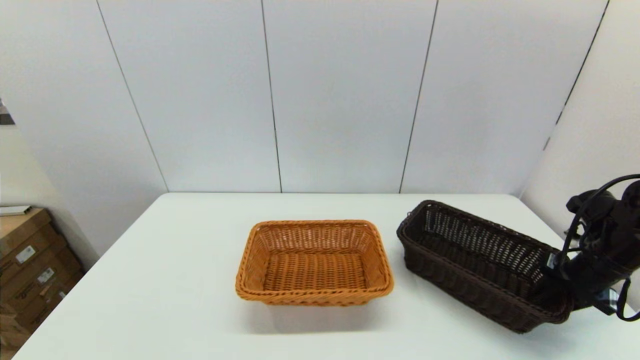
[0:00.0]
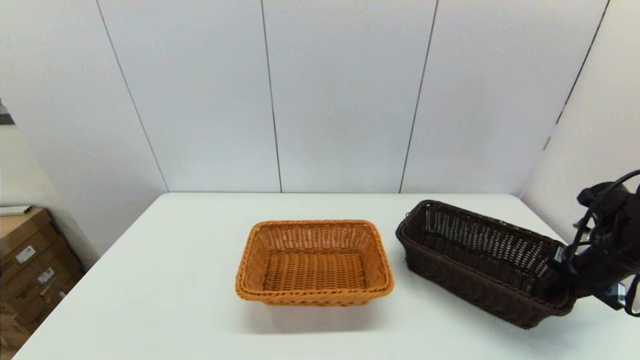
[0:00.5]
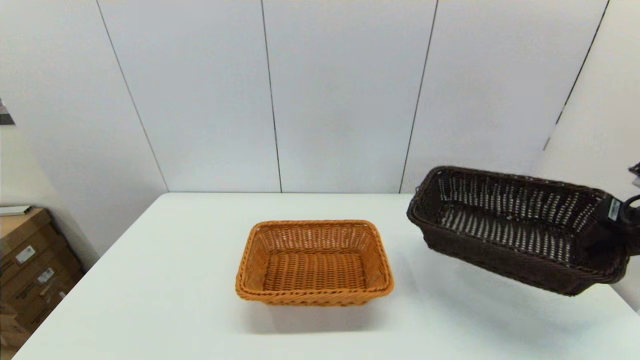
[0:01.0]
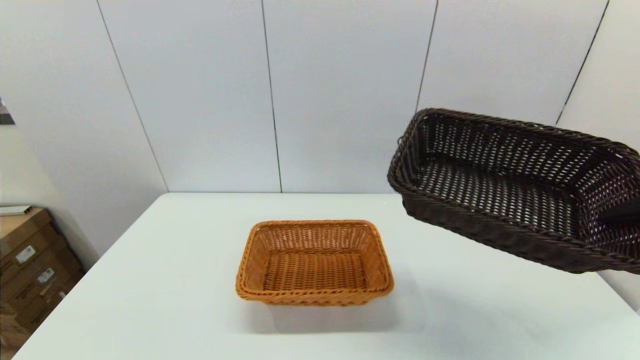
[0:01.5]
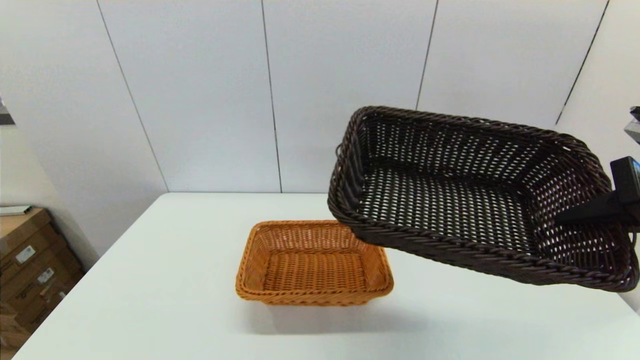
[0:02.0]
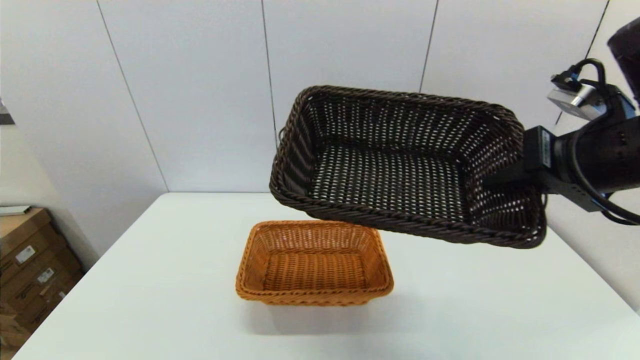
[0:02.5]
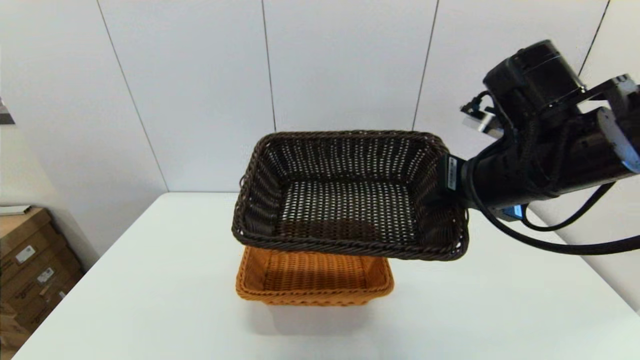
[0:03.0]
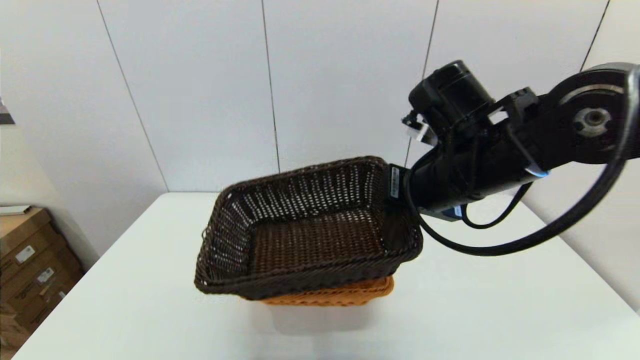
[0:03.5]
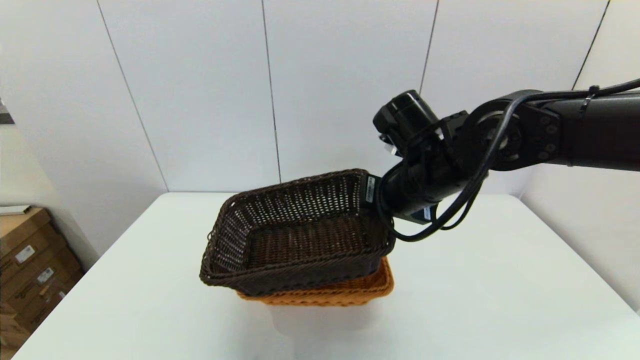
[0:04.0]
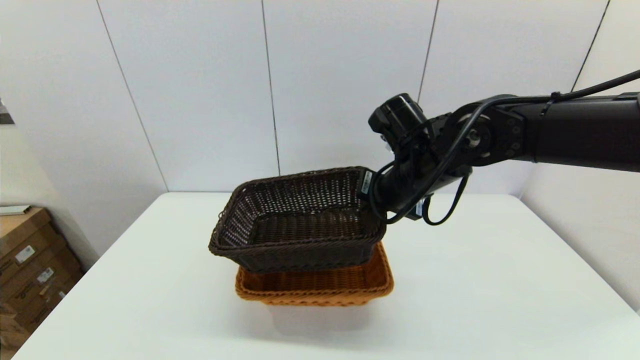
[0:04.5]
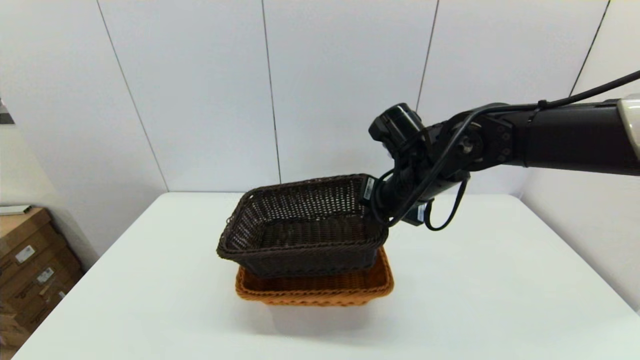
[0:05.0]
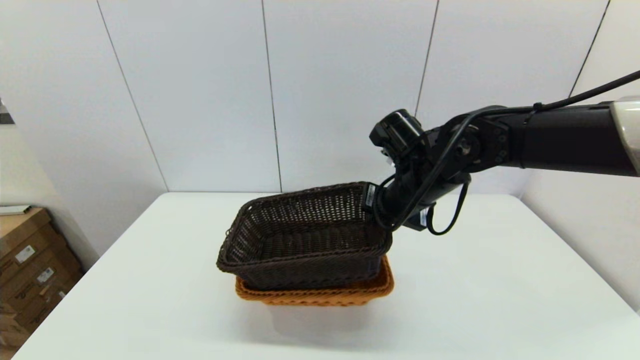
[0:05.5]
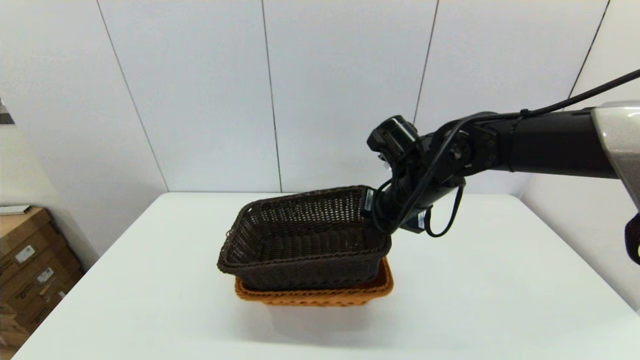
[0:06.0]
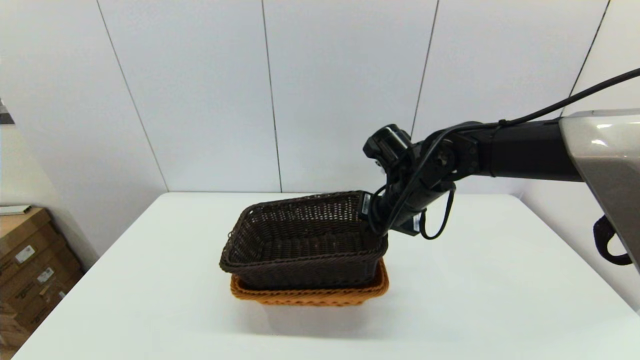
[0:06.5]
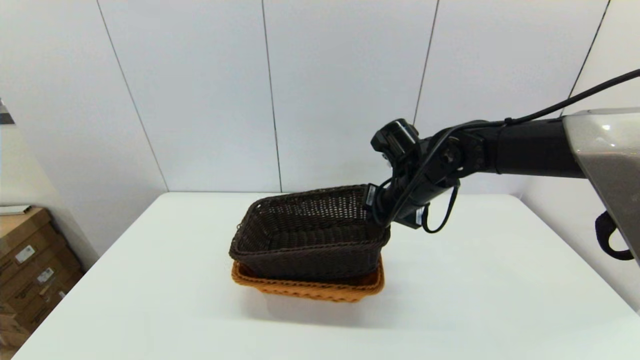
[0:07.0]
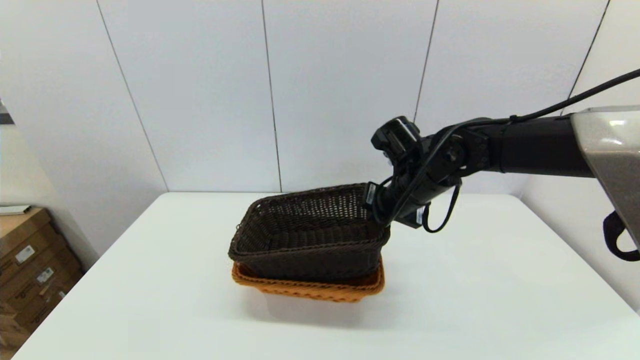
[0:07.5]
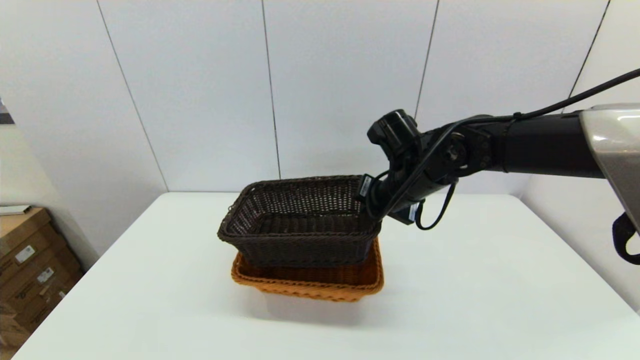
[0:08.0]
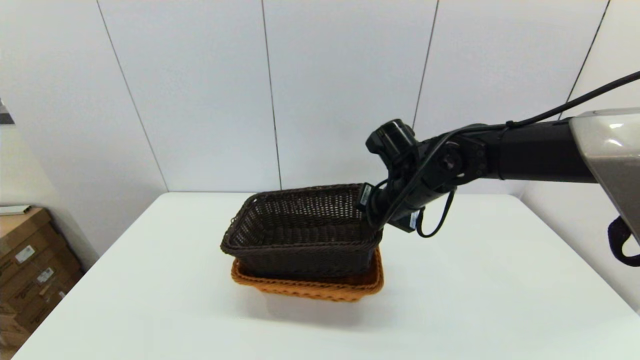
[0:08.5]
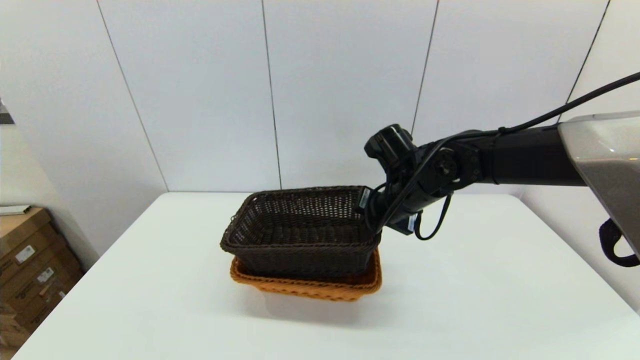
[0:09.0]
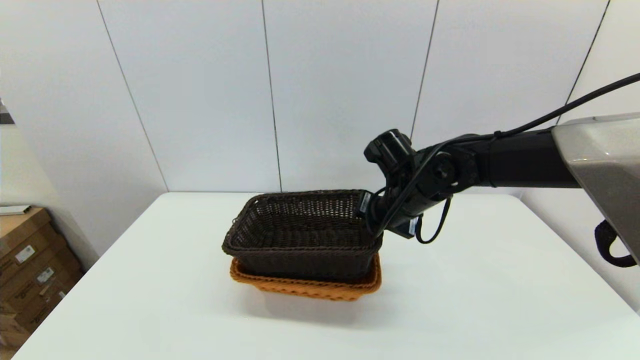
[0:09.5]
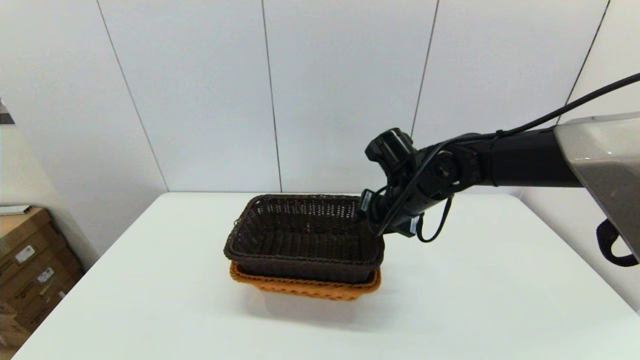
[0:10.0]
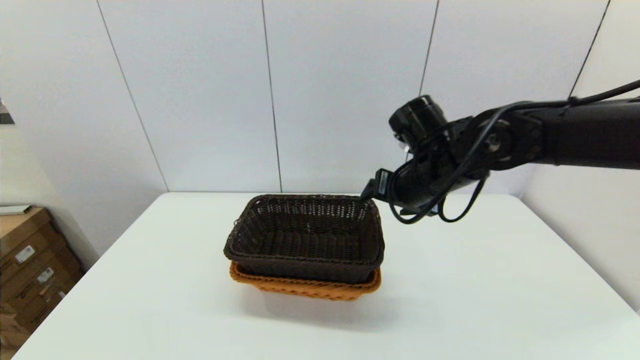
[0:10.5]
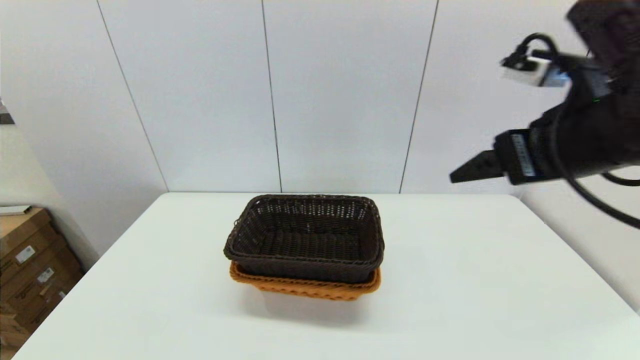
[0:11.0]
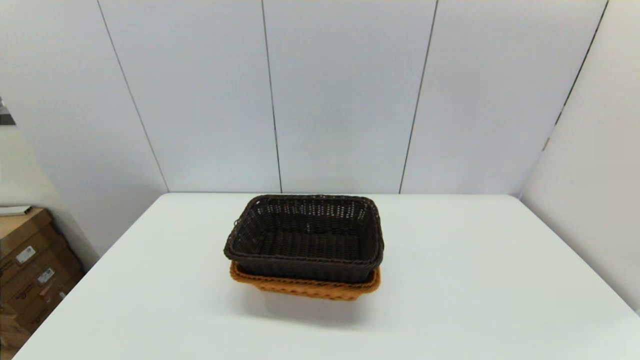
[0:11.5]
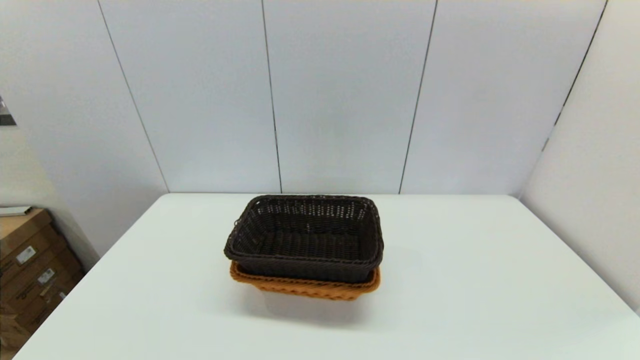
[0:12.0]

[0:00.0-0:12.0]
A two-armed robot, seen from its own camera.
Task of the whole recording: stack a basket on top of another basket.
Step, 0:01.0 to 0:10.5: Place the dark basket into the light color basket with the right gripper.
0:00.0 to 0:02.0: The right gripper shifts about 25 cm upward, backward and to the left.
0:02.0 to 0:04.0: The right gripper shifts about 25 cm to the left and forward.
0:04.0 to 0:06.0: The right gripper shifts by approximately 5 cm.
0:06.0 to 0:08.0: The grippers stay close to where they were, moving slightly.
0:08.0 to 0:10.0: The right gripper opens its fingers.
0:10.0 to 0:12.0: The right gripper goes roughly 50 cm backward, to the right and upward, and opens up.
